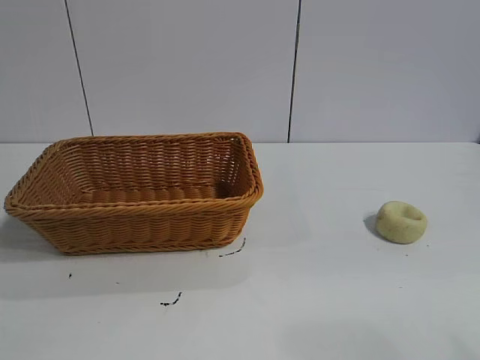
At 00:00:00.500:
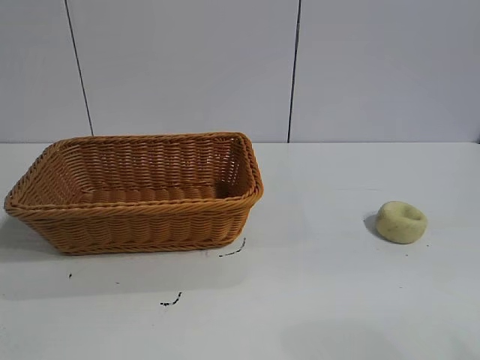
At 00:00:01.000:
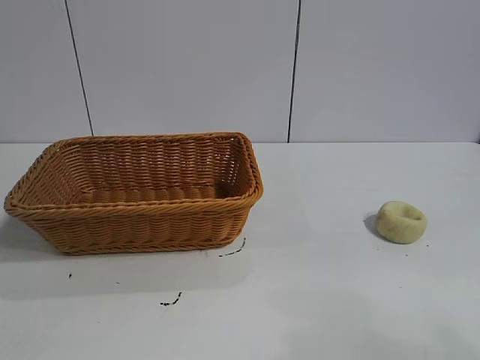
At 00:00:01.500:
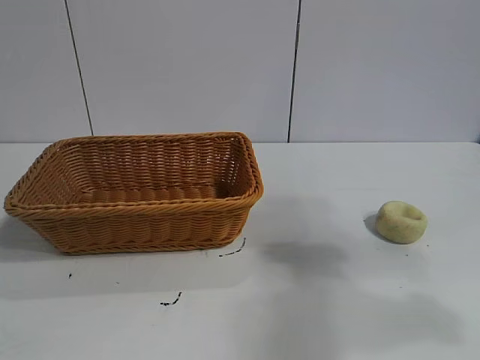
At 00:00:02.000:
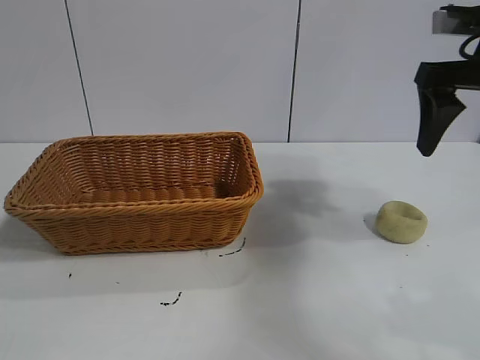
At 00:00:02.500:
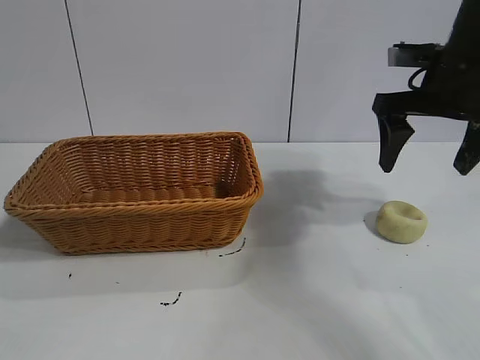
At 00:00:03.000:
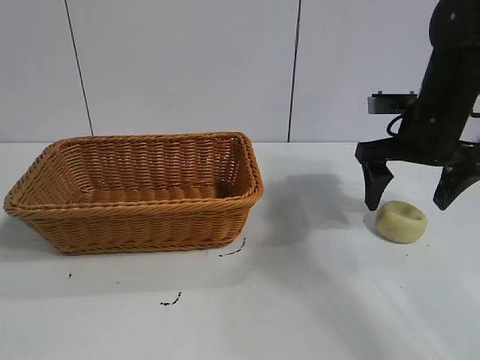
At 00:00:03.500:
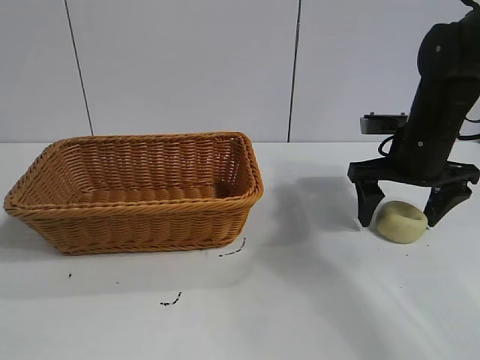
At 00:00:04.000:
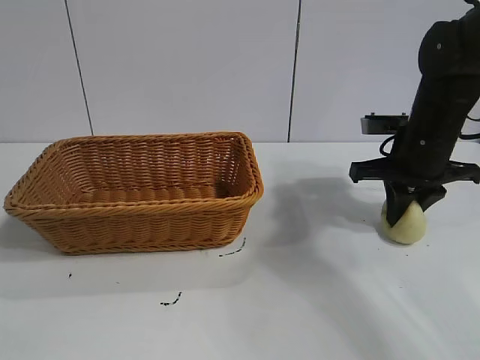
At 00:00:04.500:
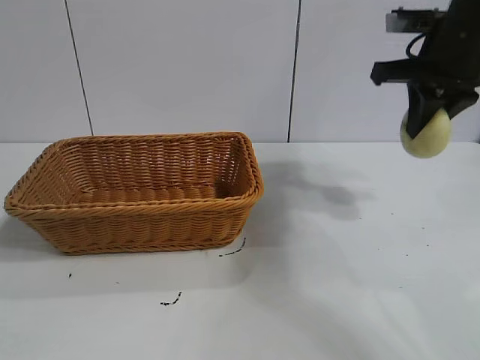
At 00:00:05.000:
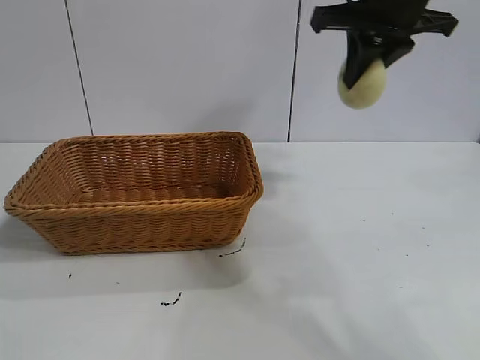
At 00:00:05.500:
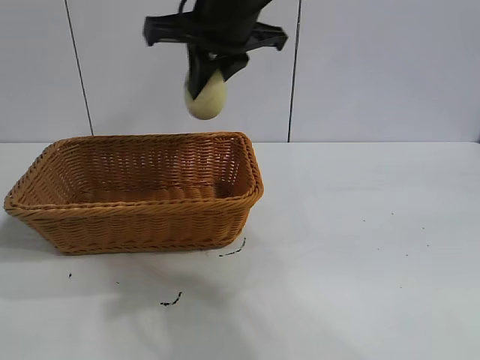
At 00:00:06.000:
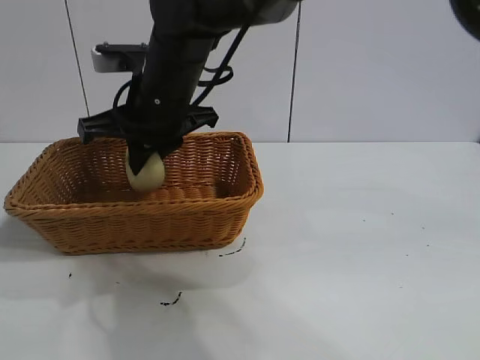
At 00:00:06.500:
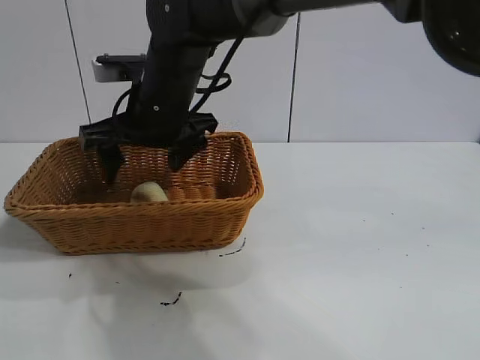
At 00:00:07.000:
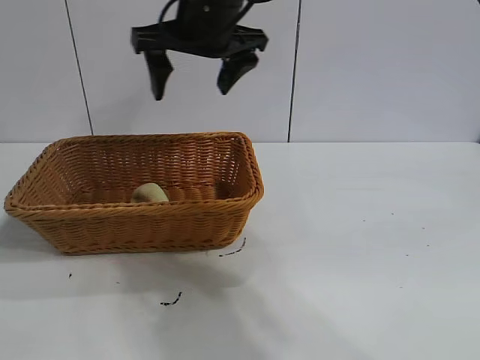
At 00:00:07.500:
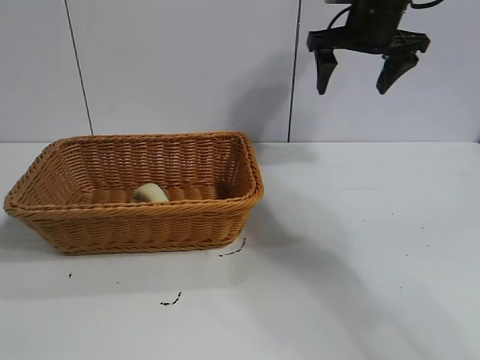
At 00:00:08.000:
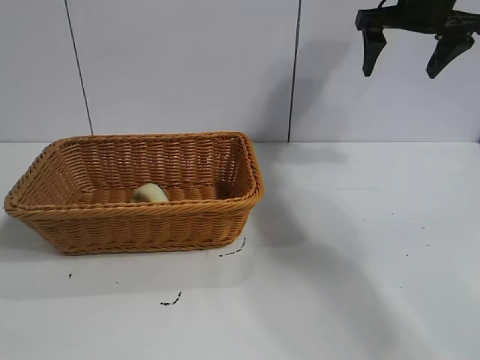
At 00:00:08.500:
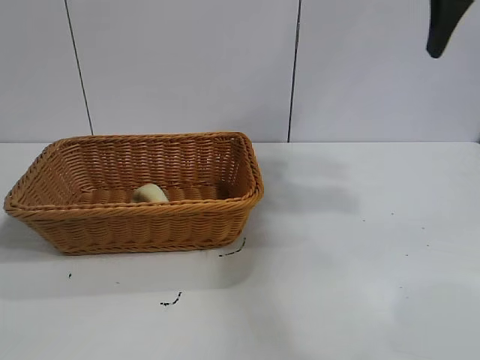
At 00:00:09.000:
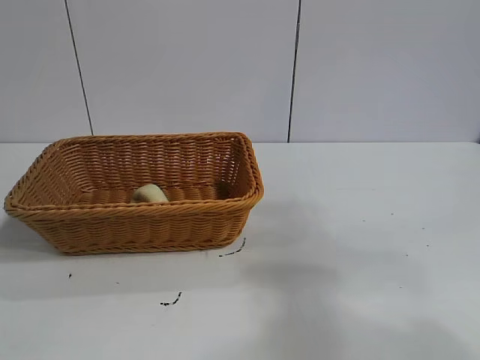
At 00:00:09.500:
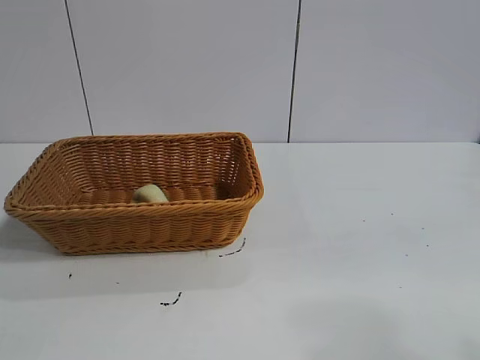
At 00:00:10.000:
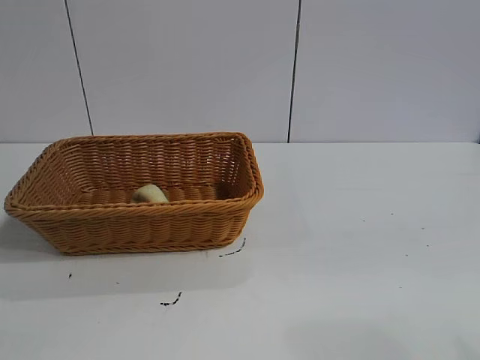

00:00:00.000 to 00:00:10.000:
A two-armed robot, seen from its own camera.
Task of the whole recording: pick up the egg yolk pastry and put it into the basket.
Step, 00:00:01.000 to 00:00:04.000: Grasp egg yolk pastry with right gripper.
Step, 00:00:04.500 to 00:00:06.500: Place the egg yolk pastry in the basket with right gripper.

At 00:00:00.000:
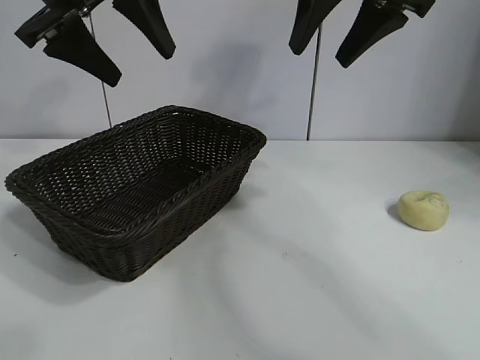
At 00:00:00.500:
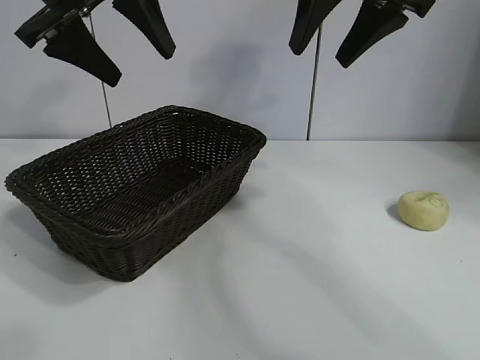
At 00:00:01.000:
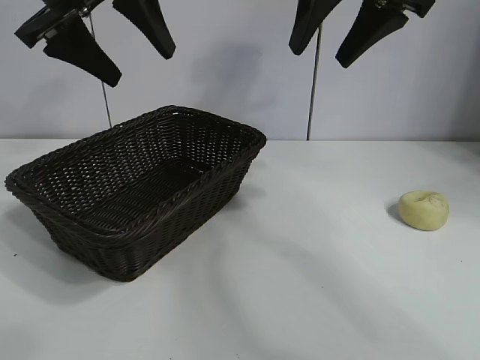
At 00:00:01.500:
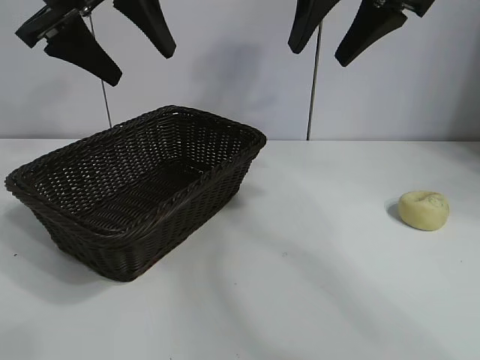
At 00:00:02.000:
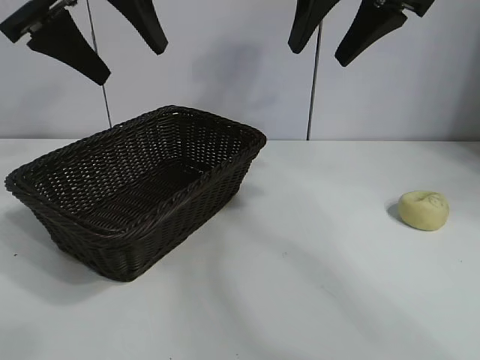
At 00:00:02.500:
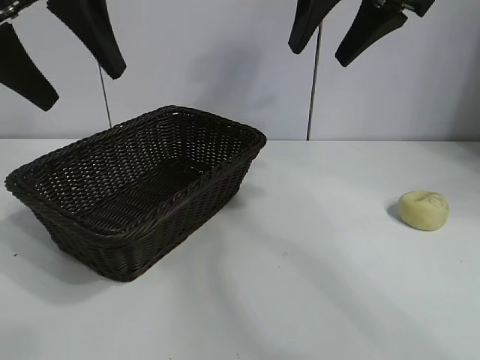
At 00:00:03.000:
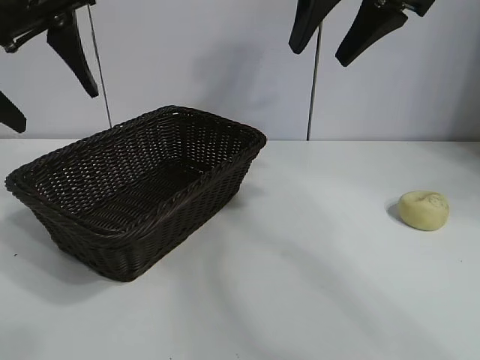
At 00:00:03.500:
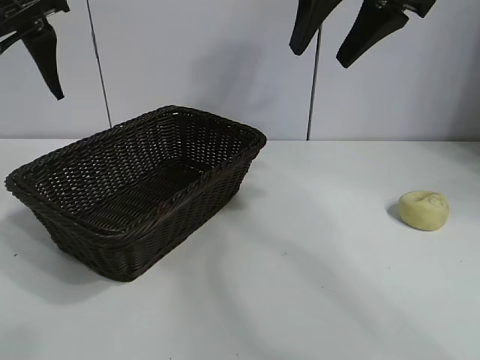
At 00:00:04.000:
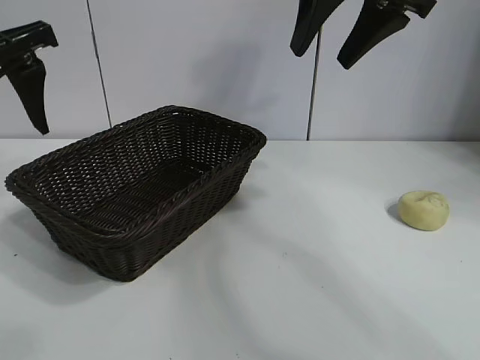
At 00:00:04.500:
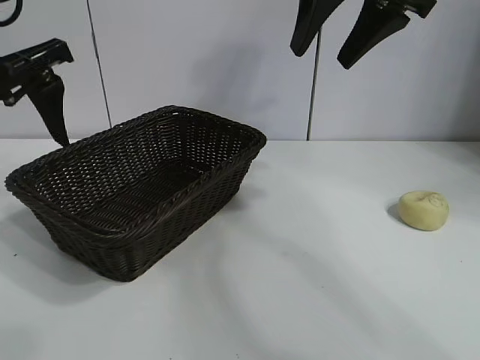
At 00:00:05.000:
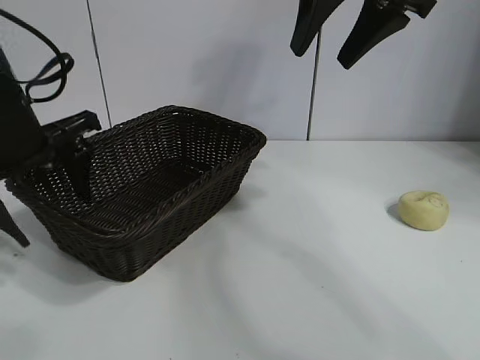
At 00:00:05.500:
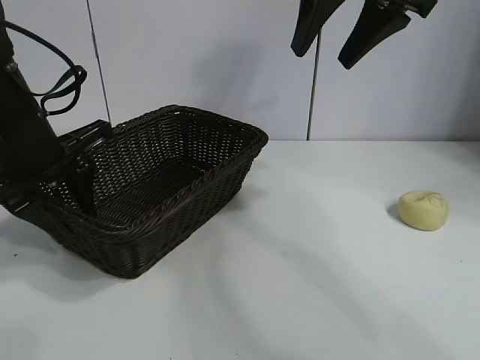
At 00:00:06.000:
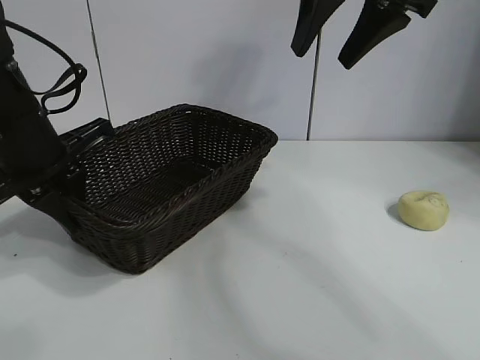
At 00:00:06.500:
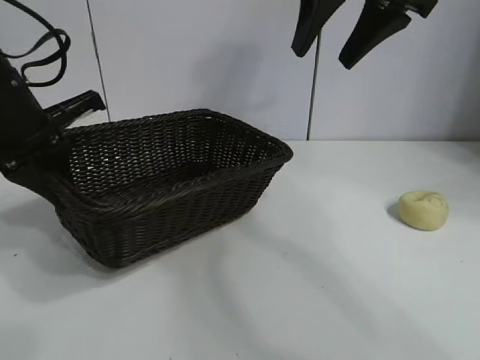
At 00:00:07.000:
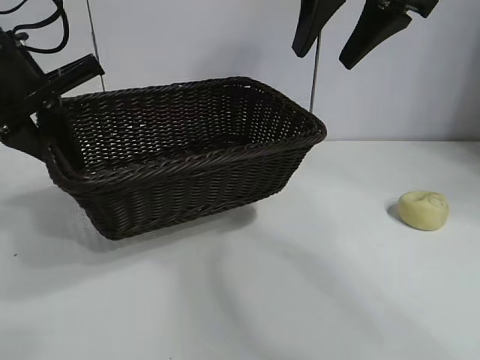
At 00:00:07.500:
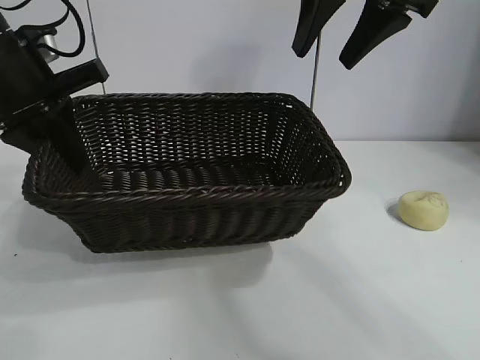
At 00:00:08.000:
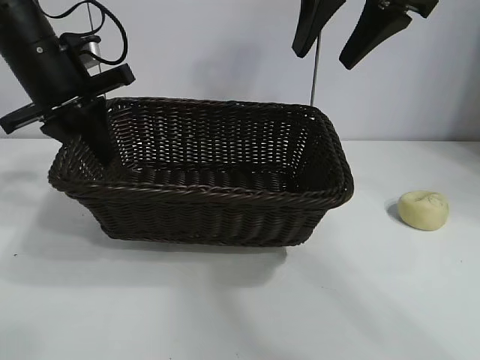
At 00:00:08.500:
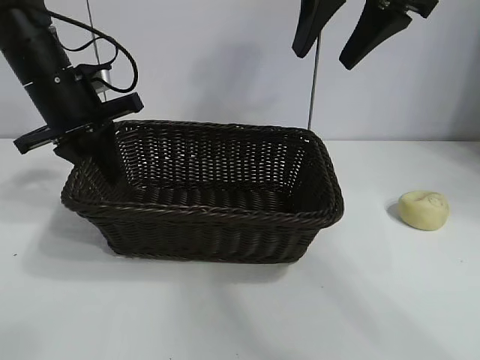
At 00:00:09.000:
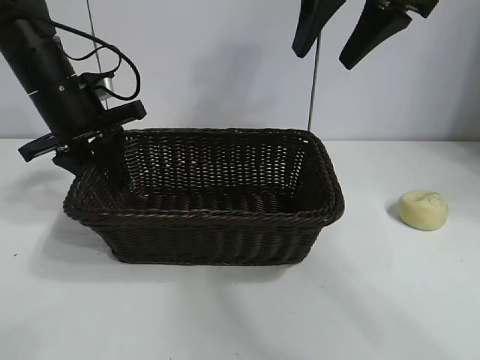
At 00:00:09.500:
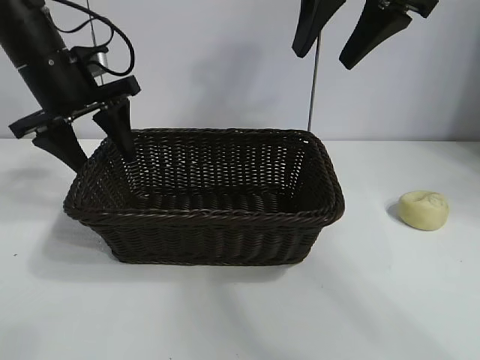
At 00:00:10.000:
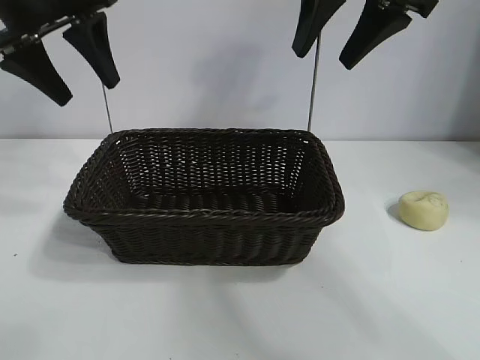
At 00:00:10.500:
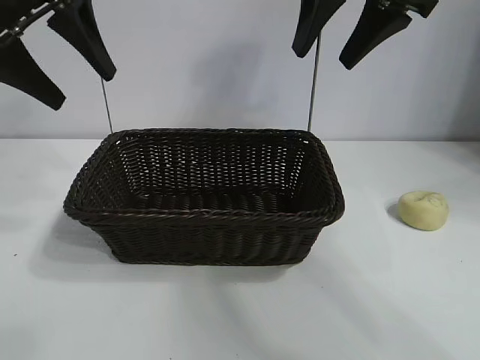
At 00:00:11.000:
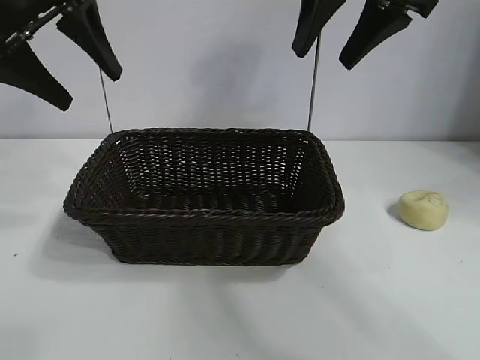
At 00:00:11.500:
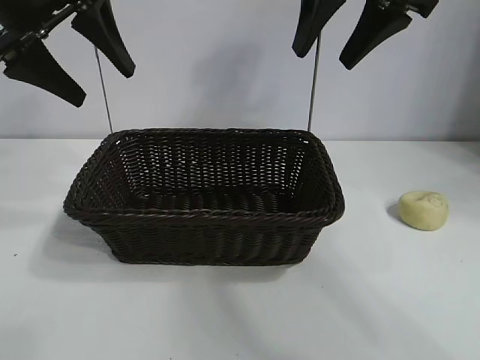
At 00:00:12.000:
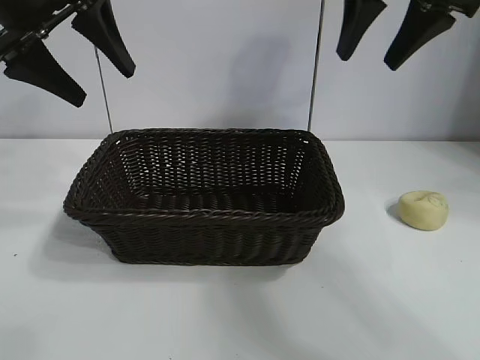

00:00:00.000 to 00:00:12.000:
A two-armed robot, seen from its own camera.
Task of the whole recording: pick up the egg yolk pastry and put it into the basket.
Step, 00:00:01.500 to 00:00:05.500: Grasp the basket with left gripper.
Step, 00:00:06.000 to 00:00:09.000: Place the basket in the center of view with left gripper.

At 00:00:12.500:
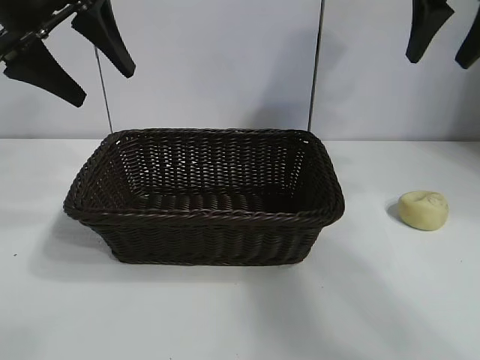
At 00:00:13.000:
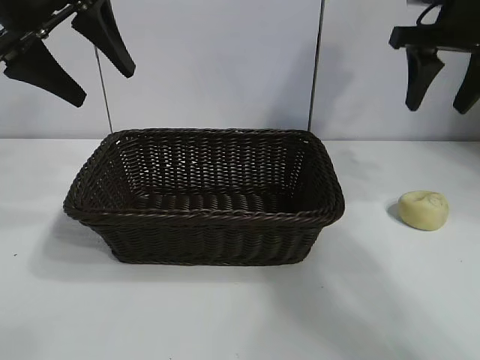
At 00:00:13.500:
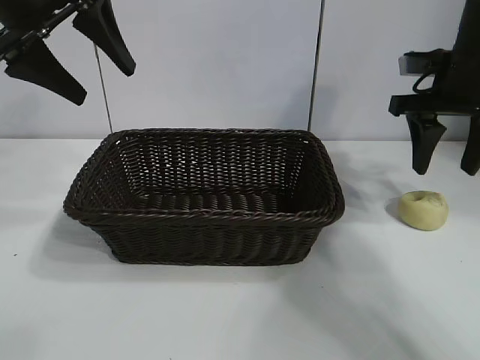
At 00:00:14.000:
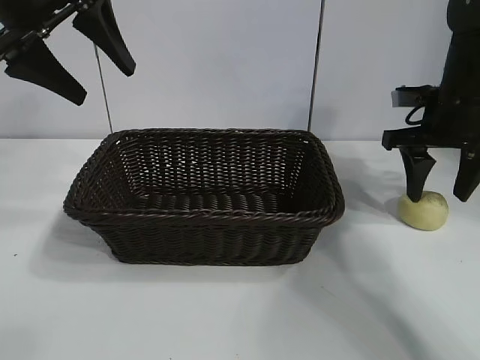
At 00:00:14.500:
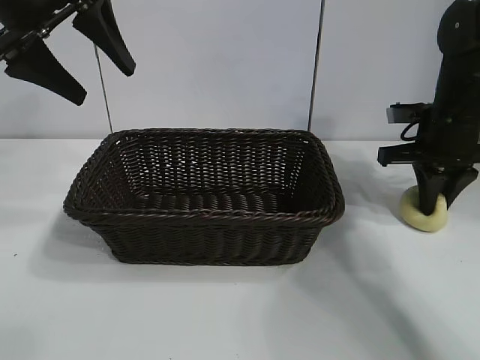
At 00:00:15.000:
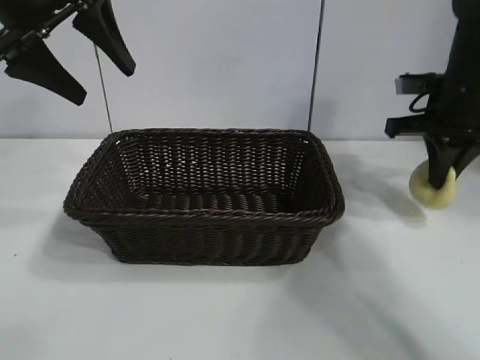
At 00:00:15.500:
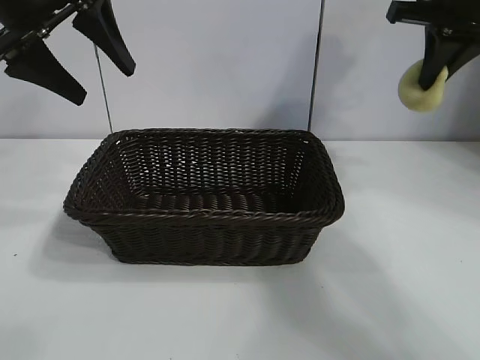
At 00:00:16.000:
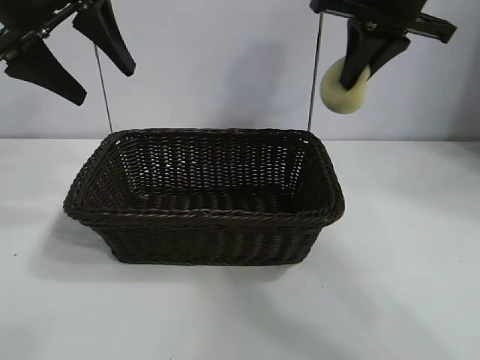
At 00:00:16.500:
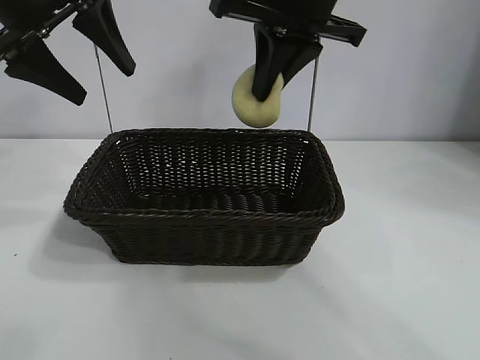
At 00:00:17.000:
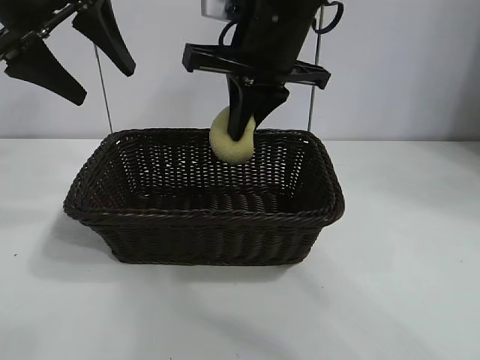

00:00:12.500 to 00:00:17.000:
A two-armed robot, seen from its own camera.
Task of the whole recording: pick up the egg yolk pastry and put it into the basket.
Step, 00:00:12.500 to 00:00:14.500: Grasp egg yolk pastry with right gripper.
